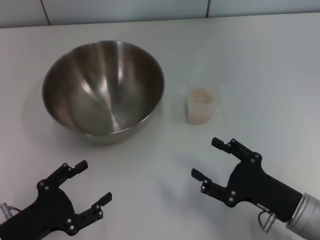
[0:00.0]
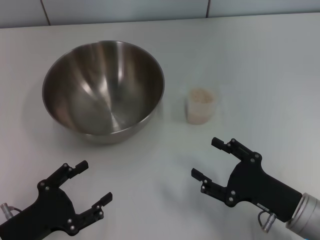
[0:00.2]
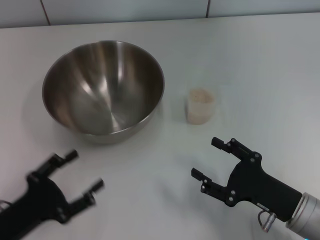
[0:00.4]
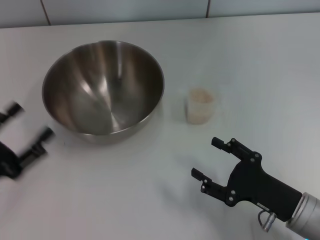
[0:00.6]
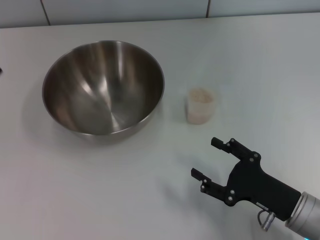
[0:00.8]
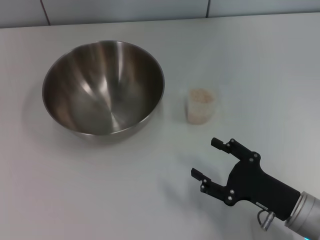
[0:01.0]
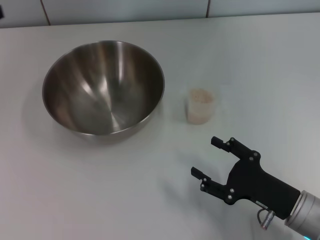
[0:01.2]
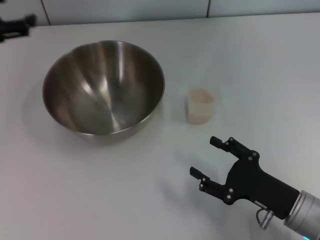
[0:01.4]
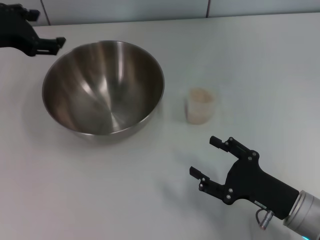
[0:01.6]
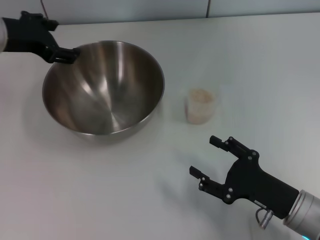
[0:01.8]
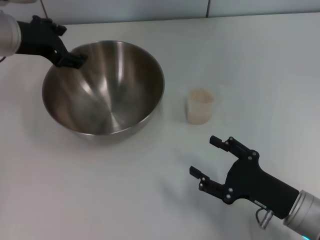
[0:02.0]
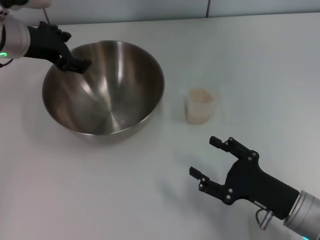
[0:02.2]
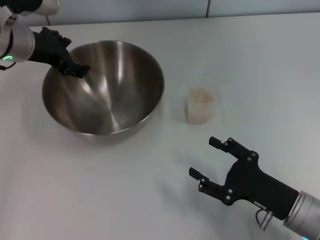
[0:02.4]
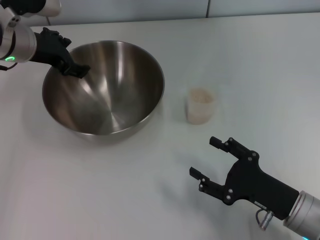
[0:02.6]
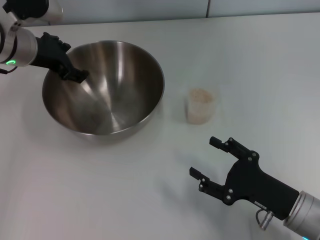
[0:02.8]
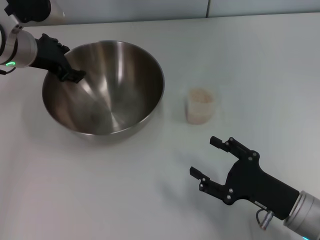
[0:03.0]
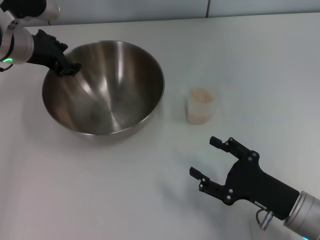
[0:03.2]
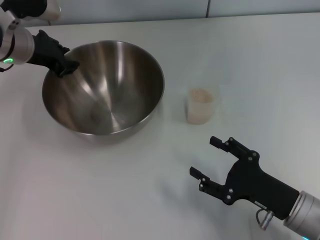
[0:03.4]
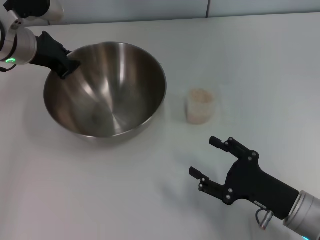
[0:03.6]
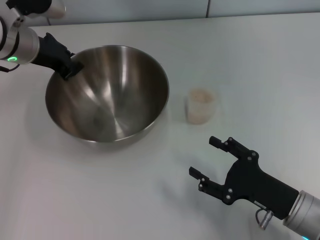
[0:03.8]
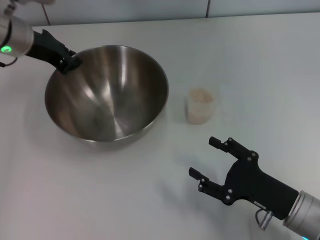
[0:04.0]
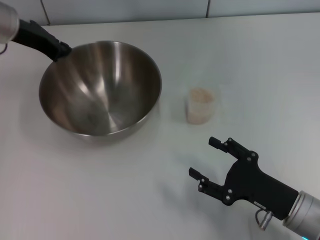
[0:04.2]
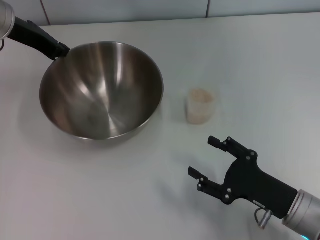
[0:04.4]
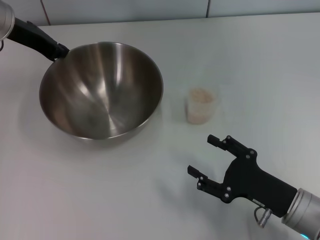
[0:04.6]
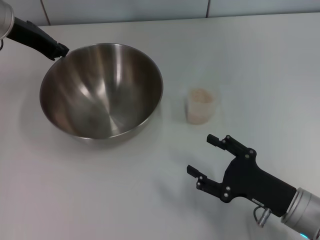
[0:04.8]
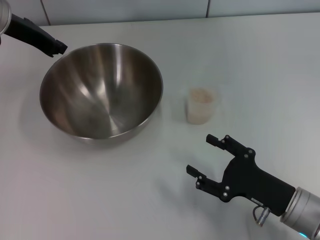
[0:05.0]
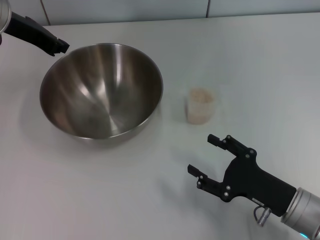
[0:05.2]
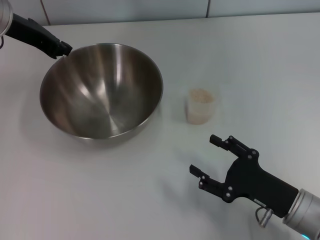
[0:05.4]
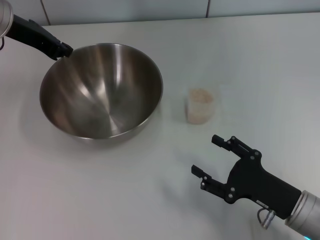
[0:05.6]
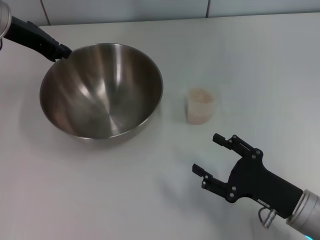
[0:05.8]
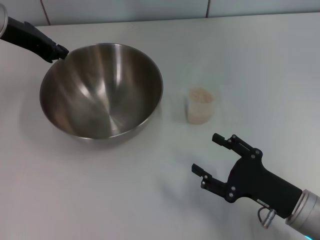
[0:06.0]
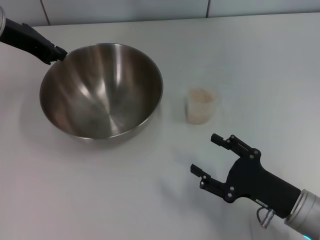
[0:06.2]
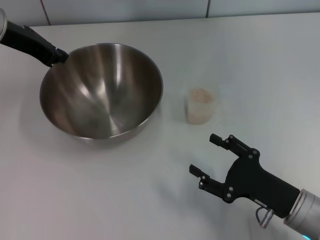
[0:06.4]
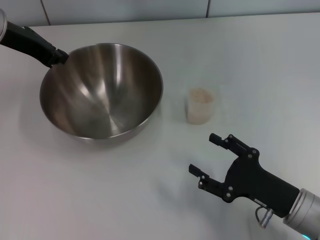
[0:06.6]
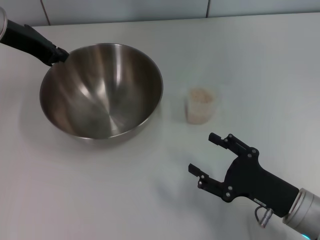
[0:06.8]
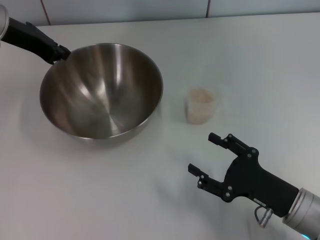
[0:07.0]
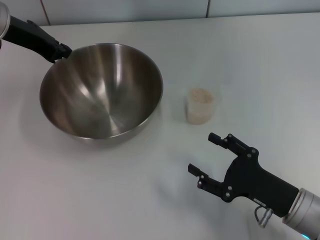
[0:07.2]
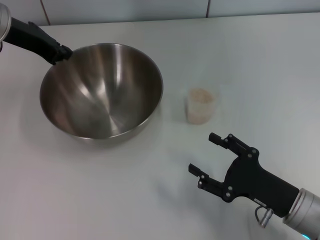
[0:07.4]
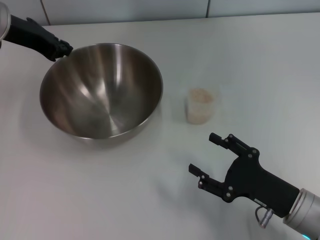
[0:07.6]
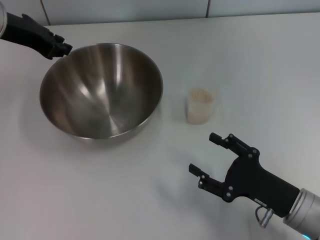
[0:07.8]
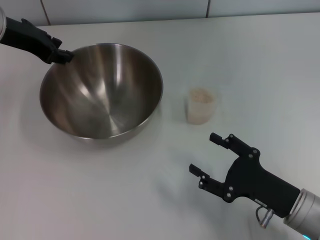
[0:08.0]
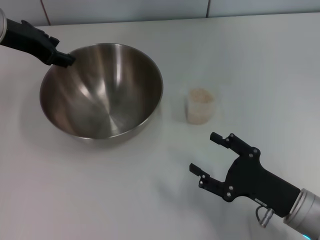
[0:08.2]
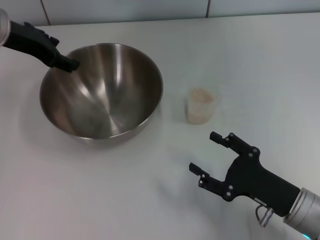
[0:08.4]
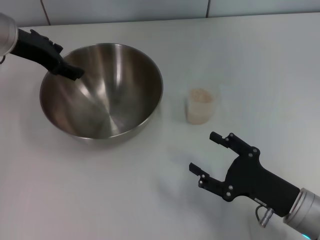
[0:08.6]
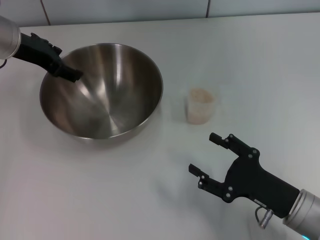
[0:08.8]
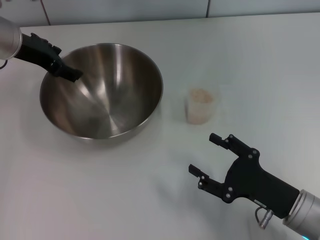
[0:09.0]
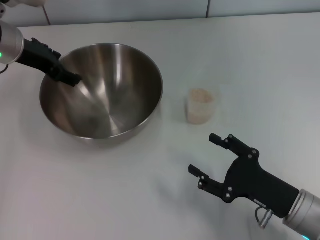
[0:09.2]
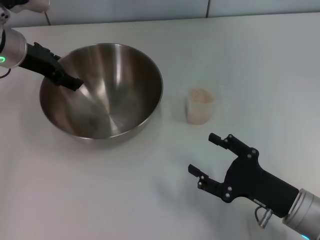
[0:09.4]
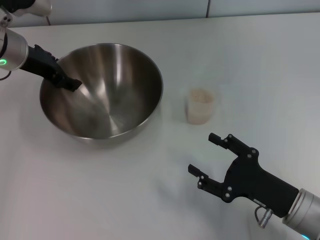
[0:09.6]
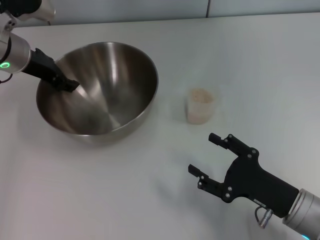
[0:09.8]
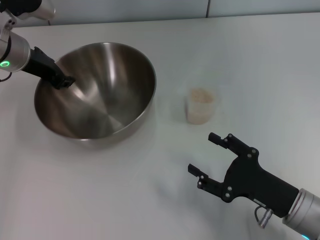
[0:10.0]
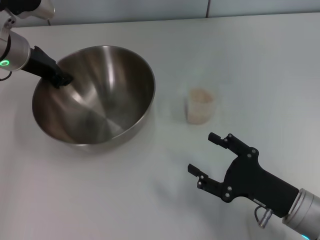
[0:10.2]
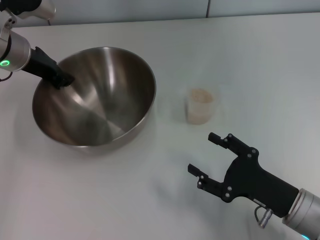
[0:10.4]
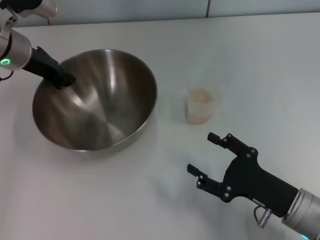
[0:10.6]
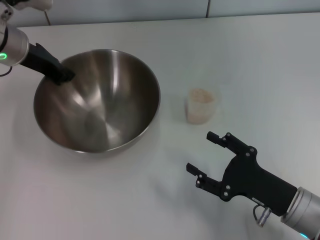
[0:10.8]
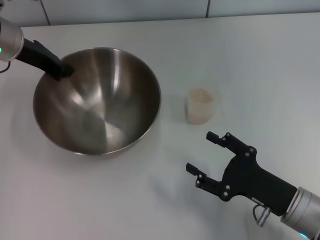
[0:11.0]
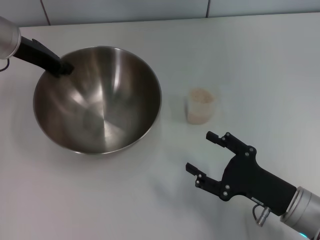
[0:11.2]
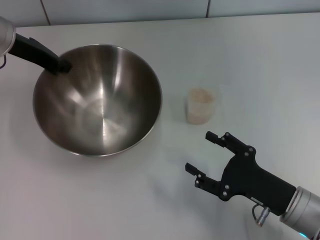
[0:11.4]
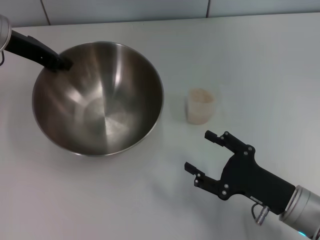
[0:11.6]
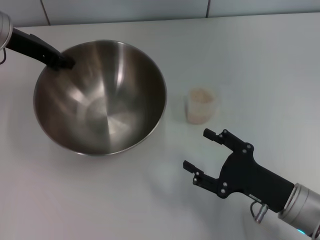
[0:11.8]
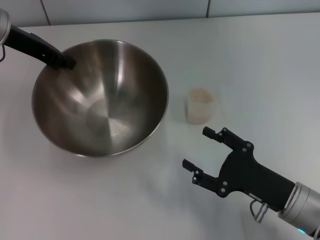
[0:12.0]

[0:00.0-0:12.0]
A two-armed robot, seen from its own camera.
Task of the whole recording: Place the bowl in the middle of the table with one hand and pour the rice from the grain cup into it with the other hand.
0:00.0 to 0:01.6: The left gripper is displaced forward and upward by about 30 cm.
0:01.6 to 0:03.0: The left gripper shifts some 10 cm to the right, forward and downward.
0:03.0 to 0:04.4: The left gripper shifts by some 5 cm, and closes up.
0:04.4 to 0:07.6: The grippers make only small movements.
0:07.6 to 0:09.0: The left gripper opens its fingers.
0:09.0 to 0:10.4: The left gripper closes up.
0:10.4 to 0:12.0: The left gripper shifts by roughly 5 cm.

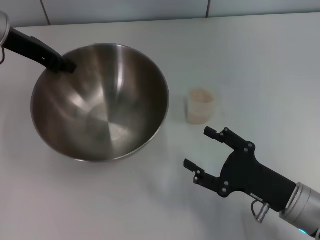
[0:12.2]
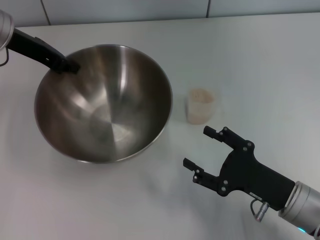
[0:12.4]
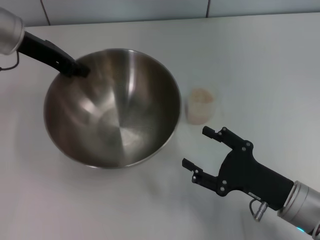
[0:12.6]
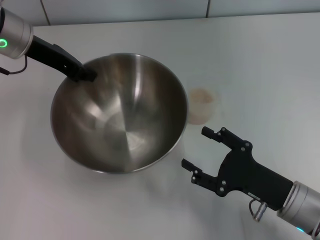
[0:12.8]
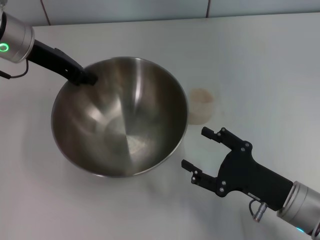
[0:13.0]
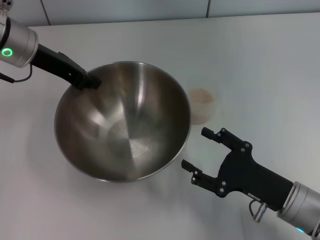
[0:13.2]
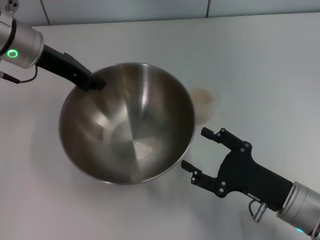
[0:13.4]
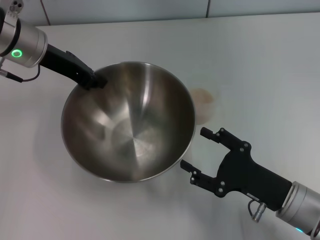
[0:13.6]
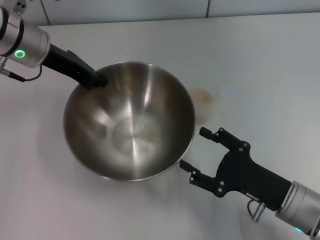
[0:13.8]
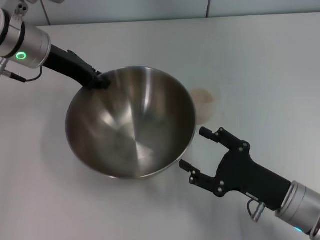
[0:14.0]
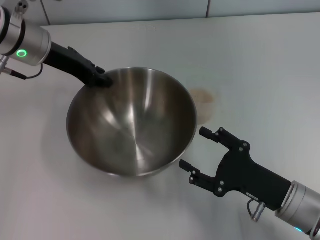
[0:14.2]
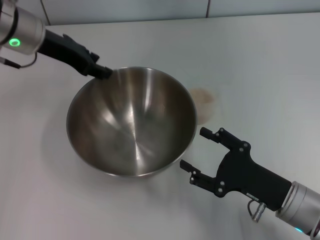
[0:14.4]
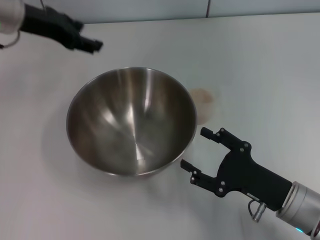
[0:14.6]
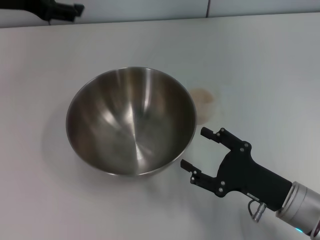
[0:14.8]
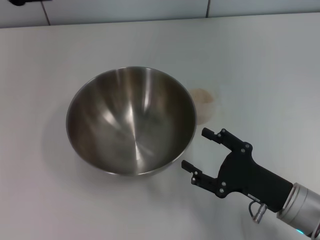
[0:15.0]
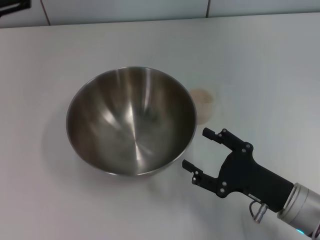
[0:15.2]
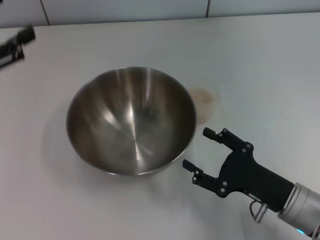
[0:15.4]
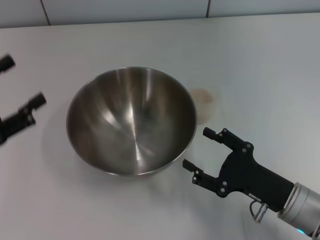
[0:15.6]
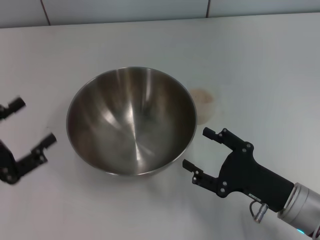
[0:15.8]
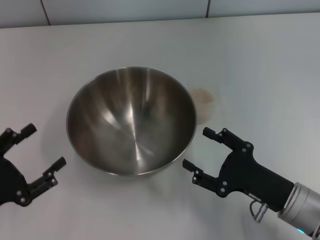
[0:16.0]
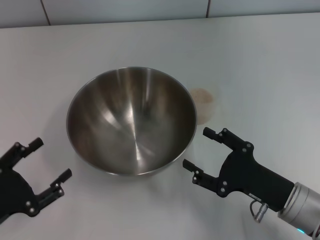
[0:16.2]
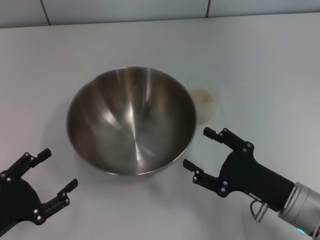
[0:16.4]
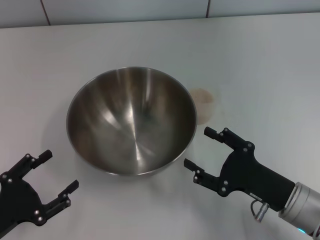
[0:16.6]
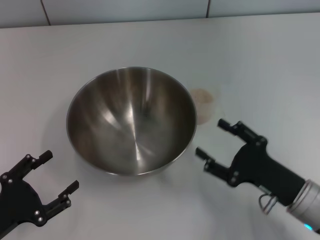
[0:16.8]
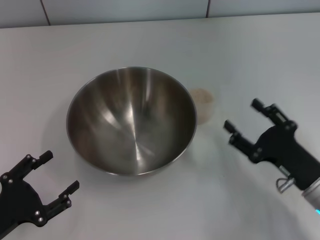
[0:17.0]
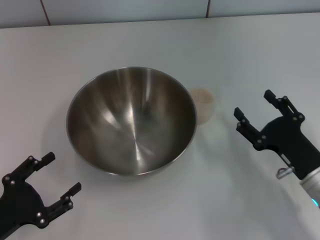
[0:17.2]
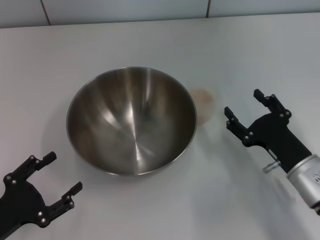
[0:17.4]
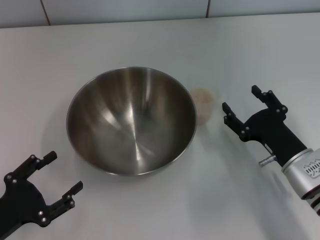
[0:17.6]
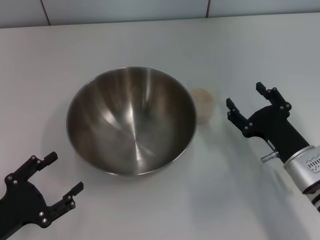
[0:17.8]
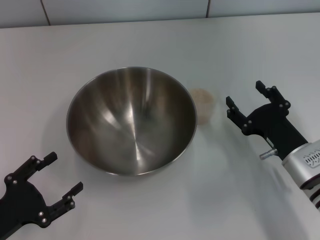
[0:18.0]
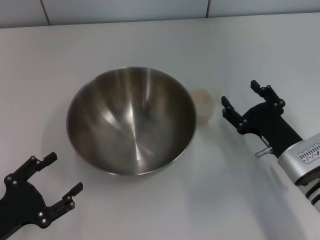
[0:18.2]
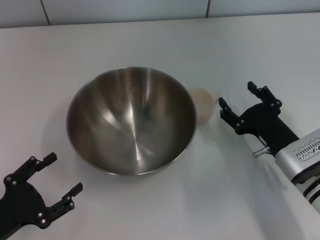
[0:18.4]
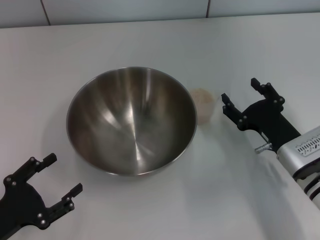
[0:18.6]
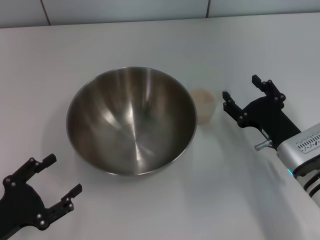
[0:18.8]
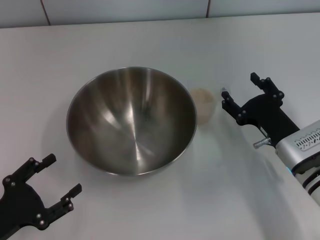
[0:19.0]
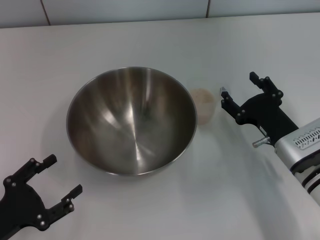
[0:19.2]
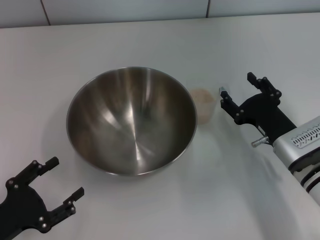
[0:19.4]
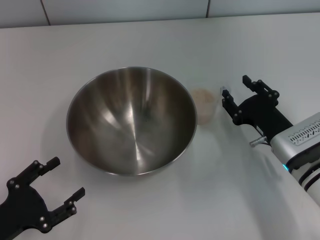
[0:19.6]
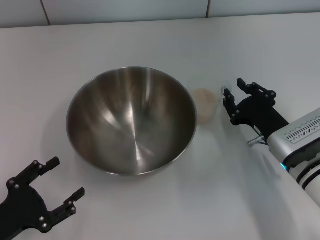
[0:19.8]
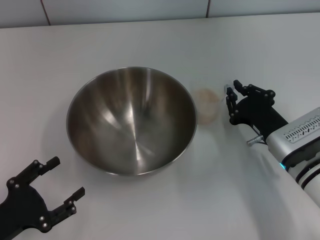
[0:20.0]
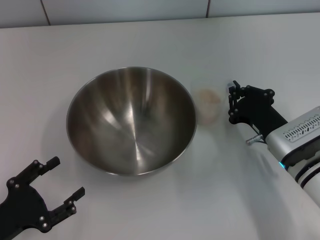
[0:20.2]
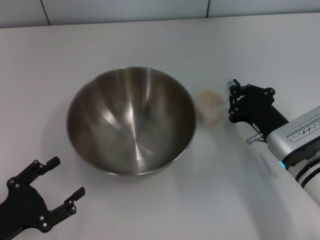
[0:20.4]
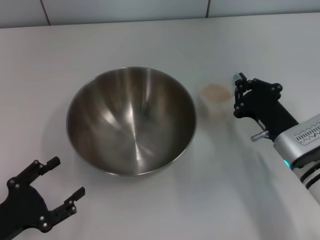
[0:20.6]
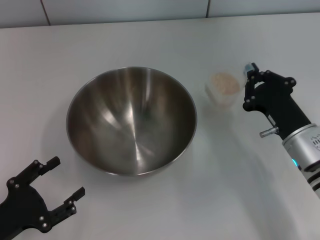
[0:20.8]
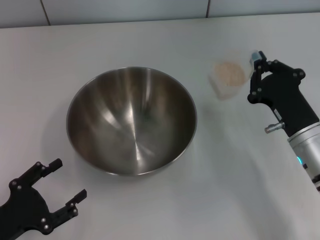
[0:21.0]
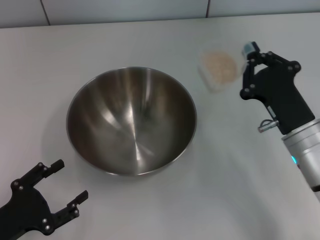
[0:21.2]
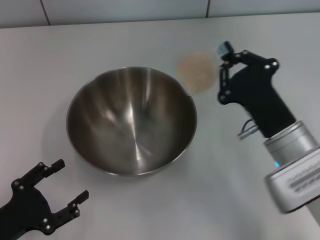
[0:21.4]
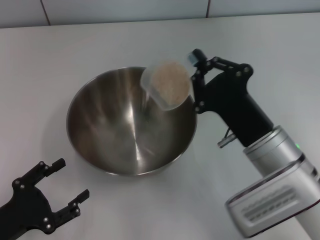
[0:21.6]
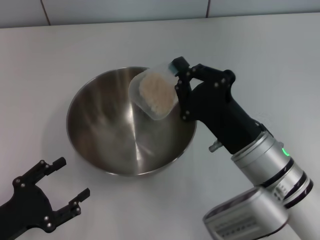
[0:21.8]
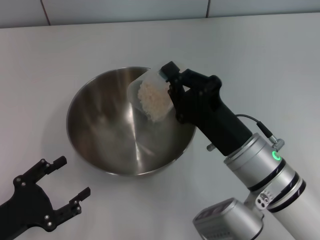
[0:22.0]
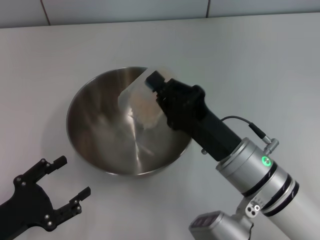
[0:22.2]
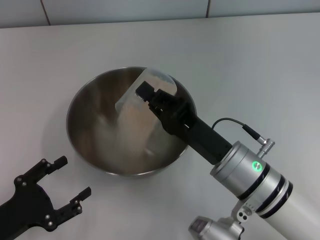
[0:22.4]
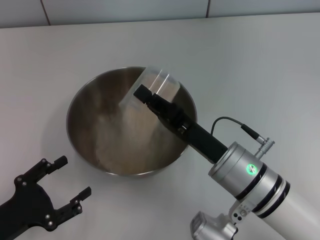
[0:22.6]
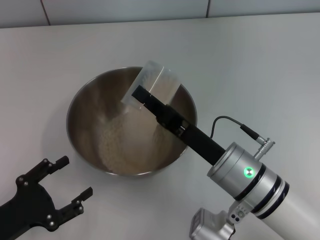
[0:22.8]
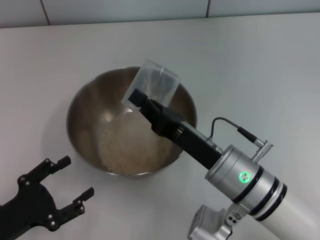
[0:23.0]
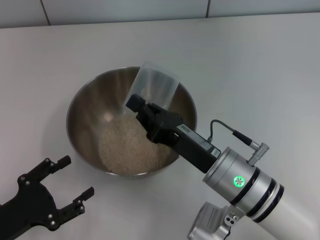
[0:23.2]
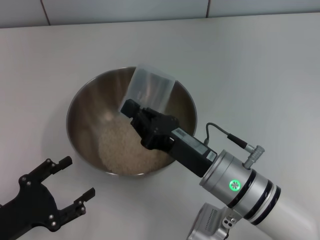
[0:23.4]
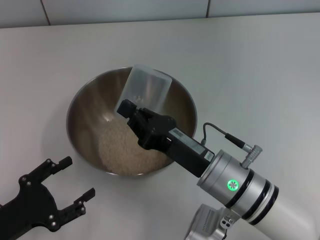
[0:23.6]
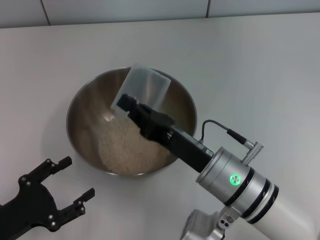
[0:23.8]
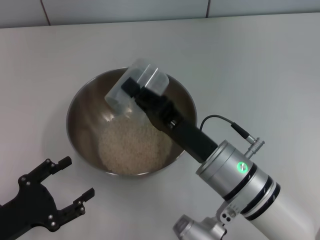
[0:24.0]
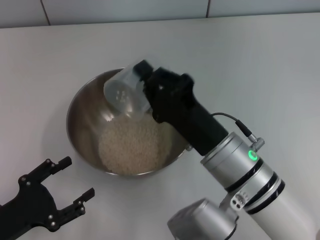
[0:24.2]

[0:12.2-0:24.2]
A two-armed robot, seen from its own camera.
Task of the whole recording: Place the bowl in the middle of the table with one hand and pour the rice from the grain cup into it with the other hand.
Step, 0:12.4 to 0:14.4: Place the bowl in the center of view with the left gripper.
Step, 0:14.6 to 0:21.0: Pick up the cup with rice in it with the right gripper.
0:12.2 to 0:13.8: The left gripper shifts by roughly 5 cm.
0:13.8 to 0:15.2: The left gripper goes some 15 cm backward, to the left and upward, and opens up.
0:15.2 to 0:16.6: The left gripper travels downward and backward by some 25 cm.
0:16.6 to 0:18.2: The right gripper goes roughly 5 cm forward.
0:18.2 to 0:19.8: The right gripper closes its fingers.
0:19.8 to 0:21.2: The right gripper closes up.
0:21.2 to 0:22.6: The right gripper heads to the left, covering about 10 cm.
